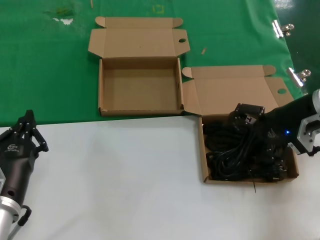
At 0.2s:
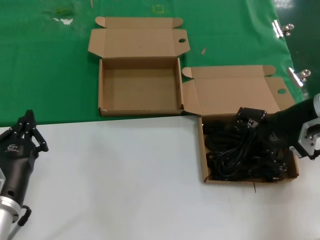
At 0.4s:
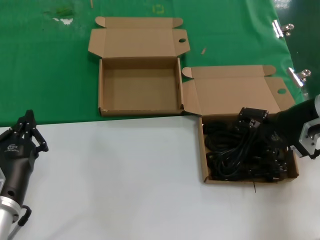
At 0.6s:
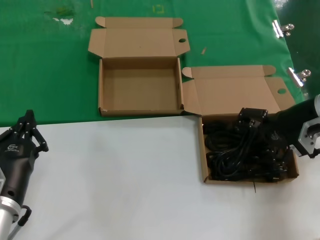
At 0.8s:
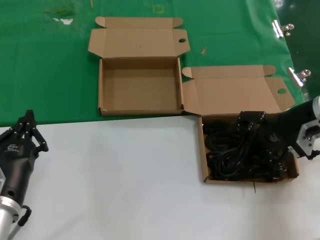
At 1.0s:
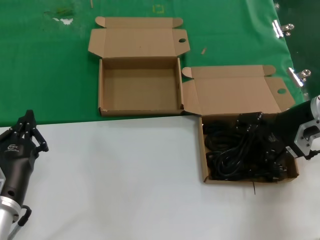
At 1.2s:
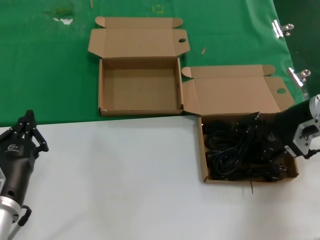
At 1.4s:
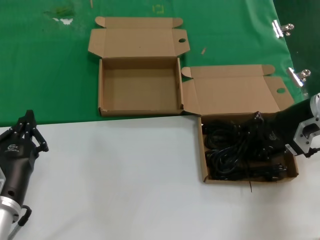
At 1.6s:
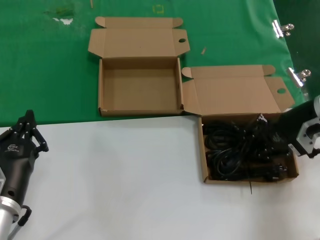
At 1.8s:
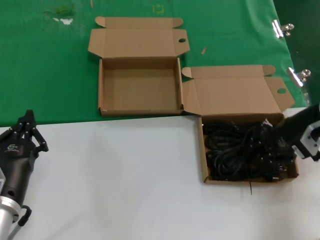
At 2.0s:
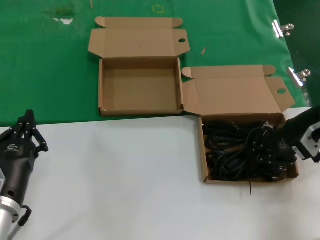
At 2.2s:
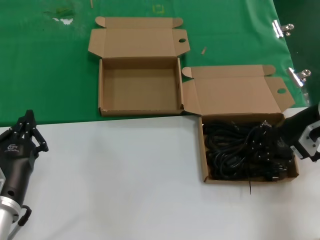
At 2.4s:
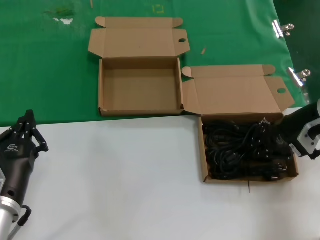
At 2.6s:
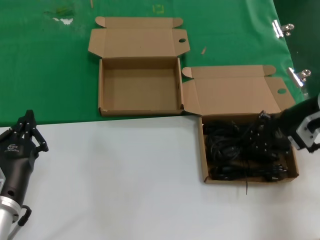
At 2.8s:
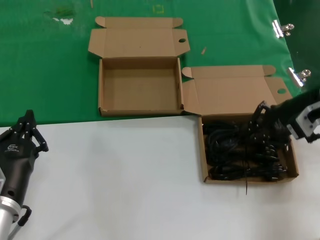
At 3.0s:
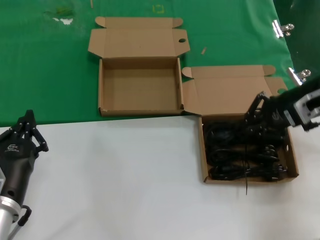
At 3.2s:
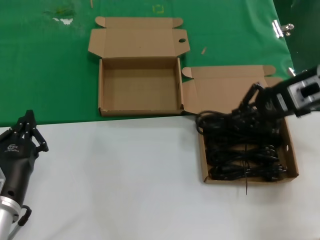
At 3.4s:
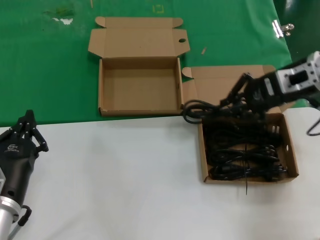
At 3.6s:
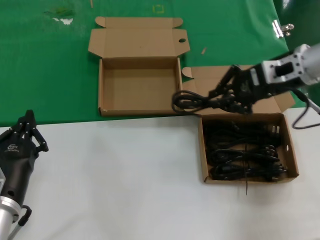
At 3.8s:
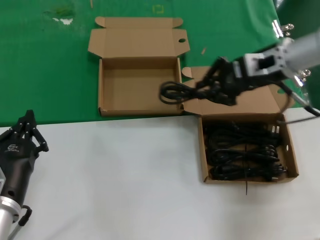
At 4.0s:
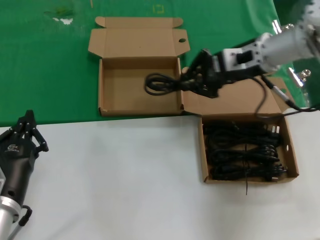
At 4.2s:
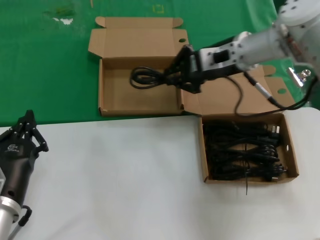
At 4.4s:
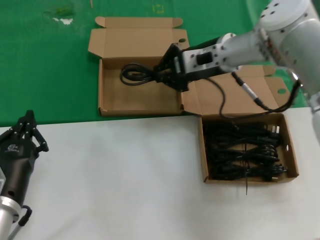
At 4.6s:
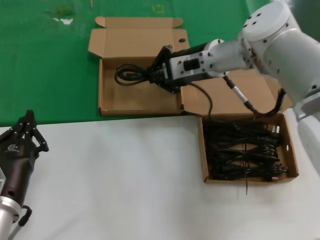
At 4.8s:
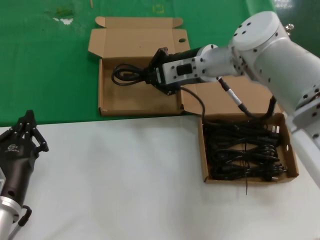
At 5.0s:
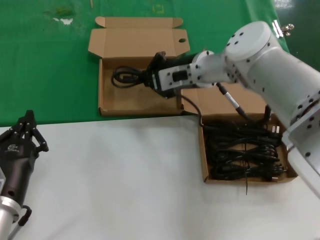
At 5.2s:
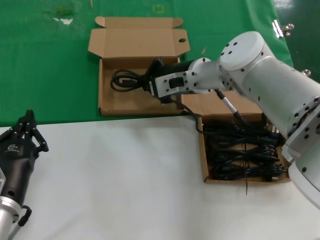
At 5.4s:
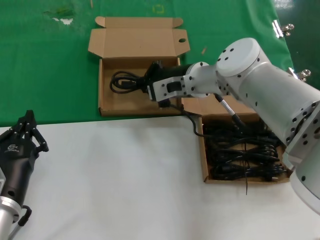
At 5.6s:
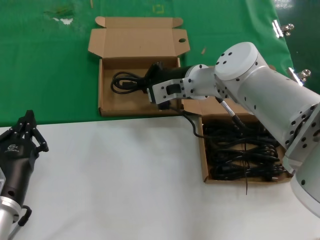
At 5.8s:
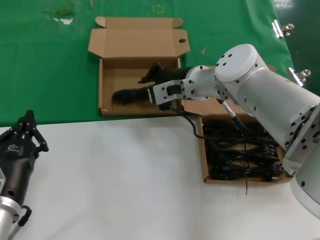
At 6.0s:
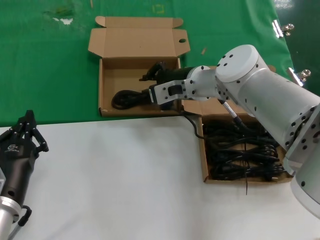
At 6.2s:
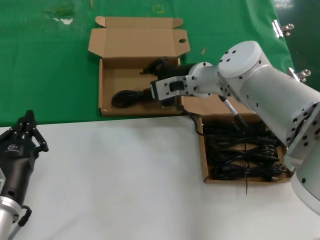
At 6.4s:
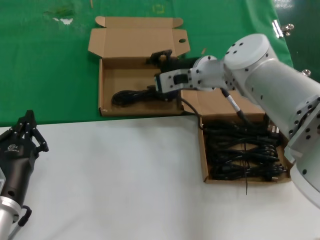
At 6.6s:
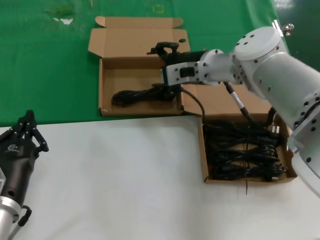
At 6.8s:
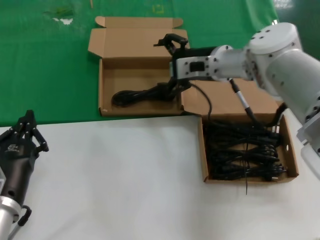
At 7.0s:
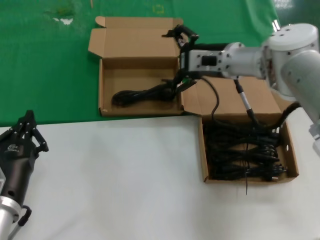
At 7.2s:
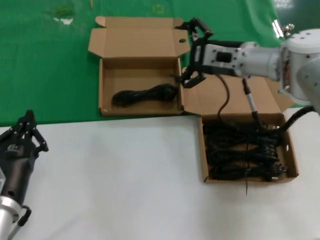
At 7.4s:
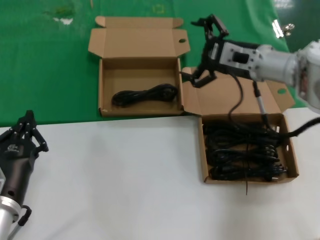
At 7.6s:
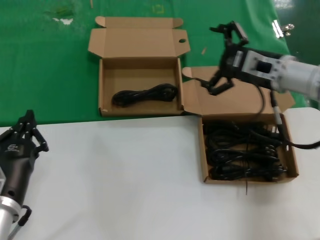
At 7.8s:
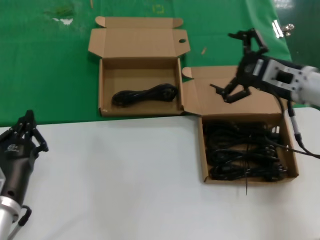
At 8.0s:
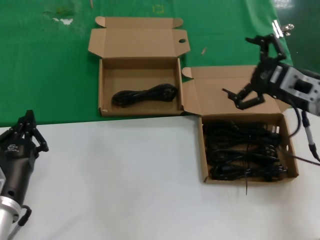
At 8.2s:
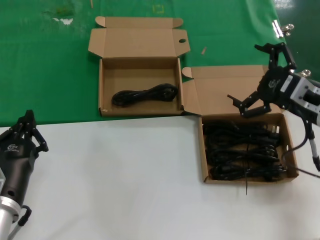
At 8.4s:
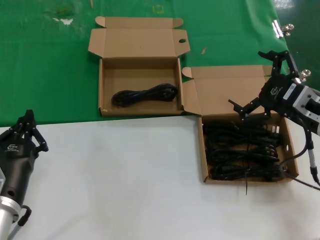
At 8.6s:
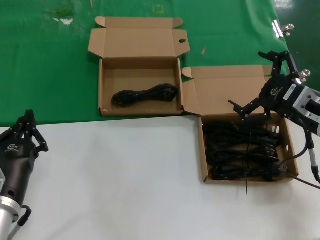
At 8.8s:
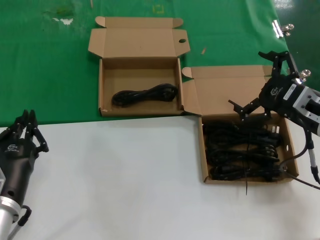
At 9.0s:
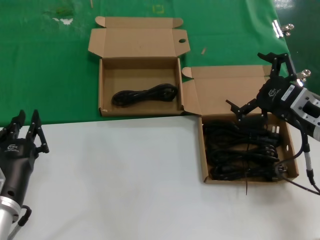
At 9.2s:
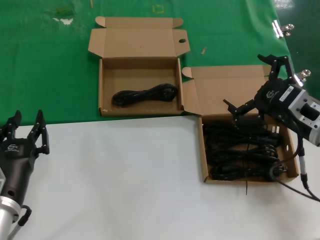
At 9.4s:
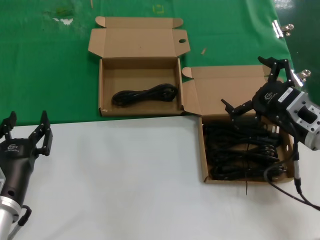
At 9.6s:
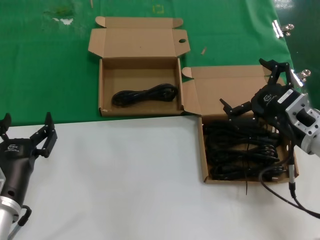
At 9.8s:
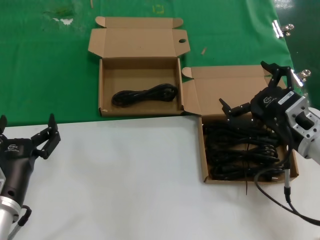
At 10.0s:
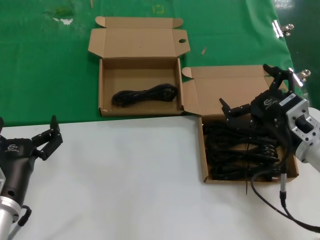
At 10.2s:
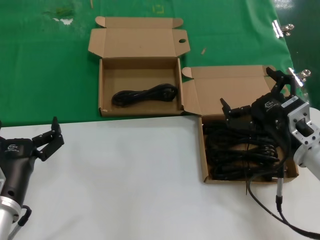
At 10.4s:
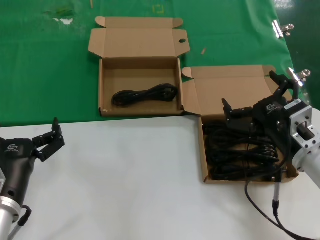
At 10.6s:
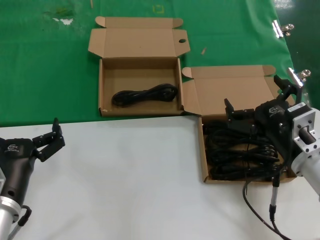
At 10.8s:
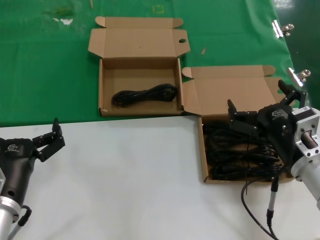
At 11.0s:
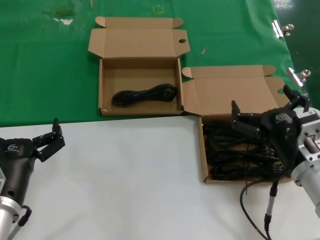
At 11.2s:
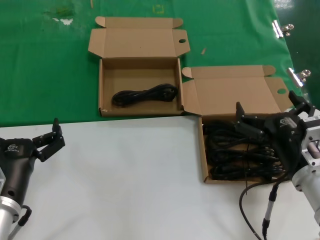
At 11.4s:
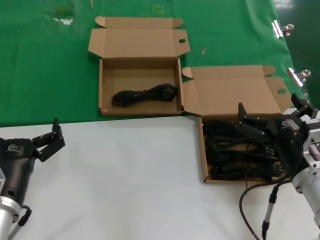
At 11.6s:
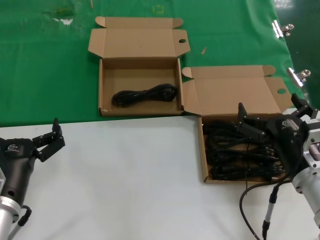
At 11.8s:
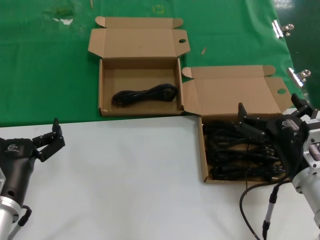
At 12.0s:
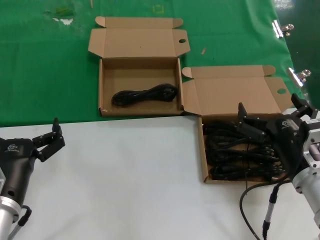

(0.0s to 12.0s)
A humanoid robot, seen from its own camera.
Task of the whole recording: take the parts from the box containing them and put them into an empty box.
Step, 1.8s - 6.0s: Place the data cable in the another box.
0.0s - 1.6s: The hands make only small movements.
1.6s - 3.0s: The right hand goes about 5 cm upward.
3.0s - 4.4s: The right hand shifts about 20 cm to the left and forward.
4.4s - 6.0s: The right hand is displaced downward and to the left by about 10 cm.
6.0s - 7.6s: The right hand shifts approximately 15 cm to the right.
7.6s - 9.0s: The right hand shifts roughly 15 cm backward.
9.0s - 10.4s: The right hand goes roughly 5 cm to the left and downward.
10.4s - 12.0s: The right hand moves some 5 cm.

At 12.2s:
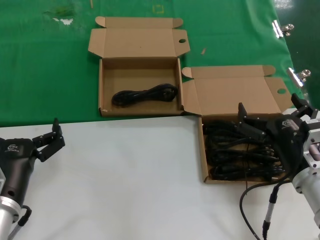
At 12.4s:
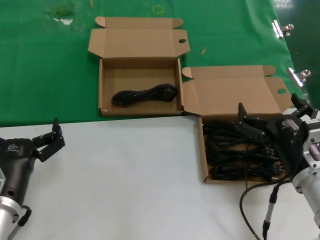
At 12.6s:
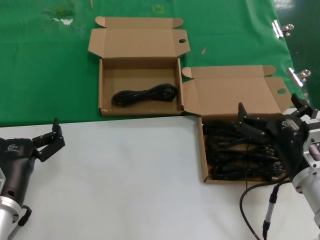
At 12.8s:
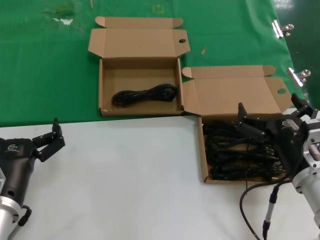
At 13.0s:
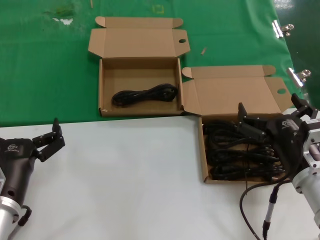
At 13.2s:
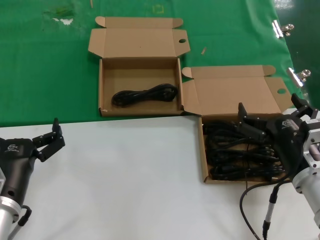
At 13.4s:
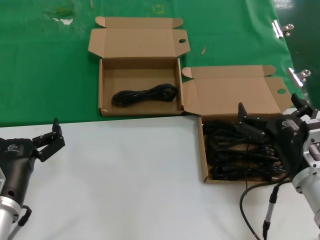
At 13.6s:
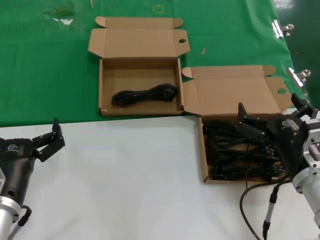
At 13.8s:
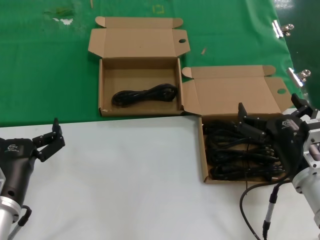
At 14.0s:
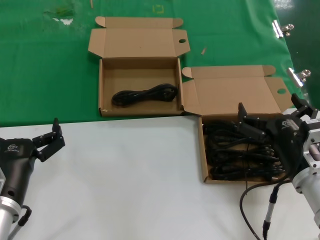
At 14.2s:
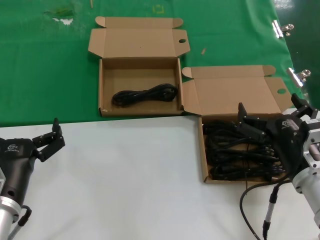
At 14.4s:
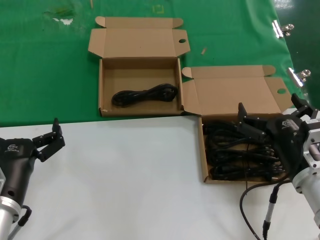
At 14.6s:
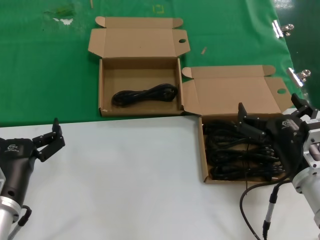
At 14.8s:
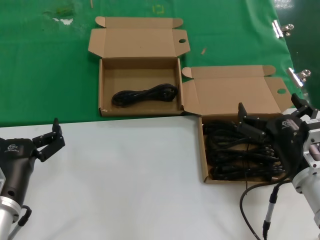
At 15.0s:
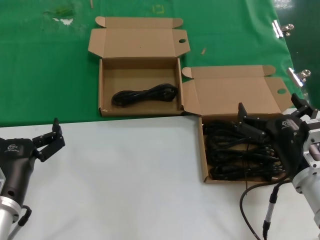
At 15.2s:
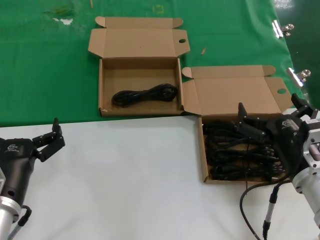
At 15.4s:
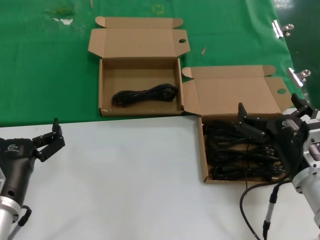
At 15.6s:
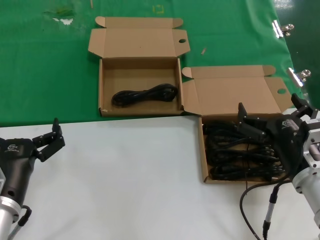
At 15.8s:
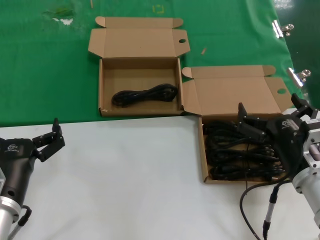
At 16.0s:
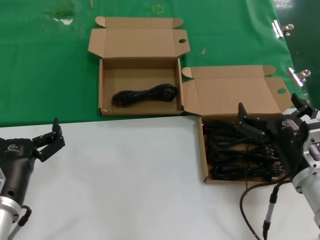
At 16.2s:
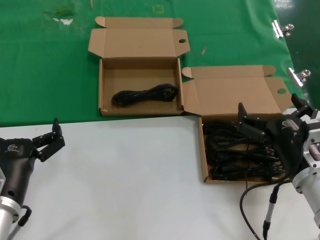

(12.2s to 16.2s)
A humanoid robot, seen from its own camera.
Task of the whole recording: take the parts from the box containing them and put them into an empty box.
12.2s - 16.2s: The two hands keep their place.

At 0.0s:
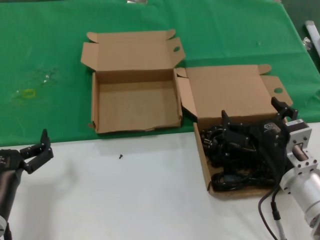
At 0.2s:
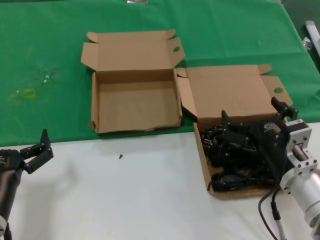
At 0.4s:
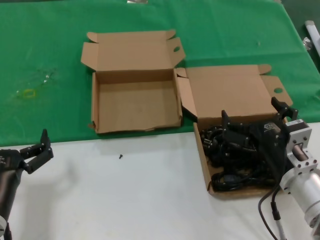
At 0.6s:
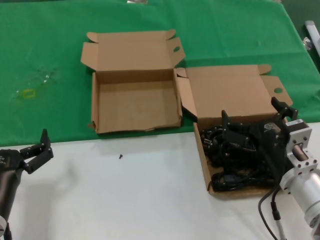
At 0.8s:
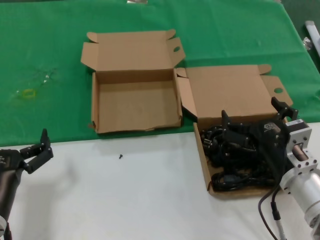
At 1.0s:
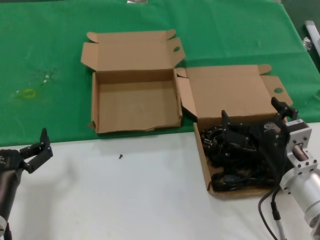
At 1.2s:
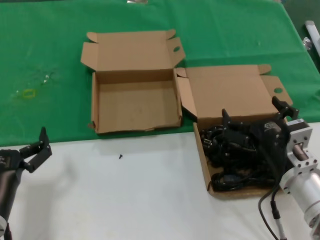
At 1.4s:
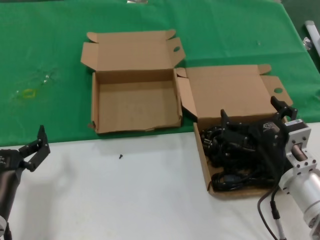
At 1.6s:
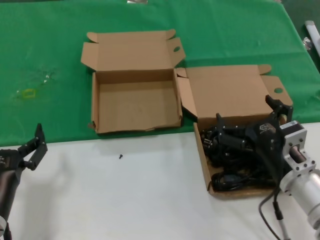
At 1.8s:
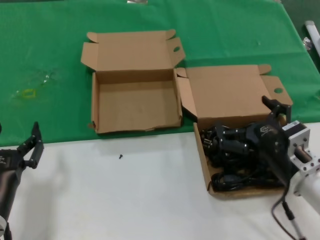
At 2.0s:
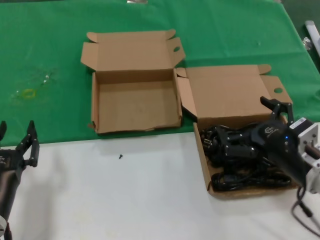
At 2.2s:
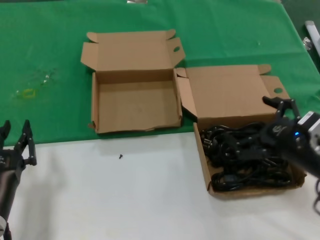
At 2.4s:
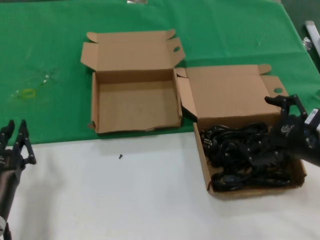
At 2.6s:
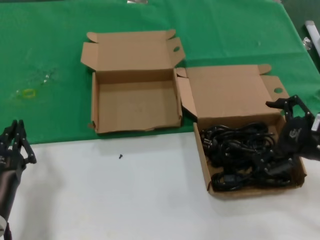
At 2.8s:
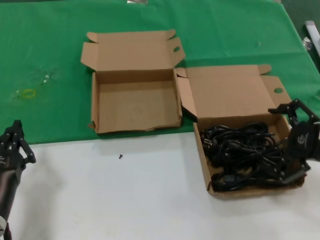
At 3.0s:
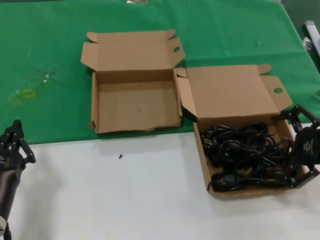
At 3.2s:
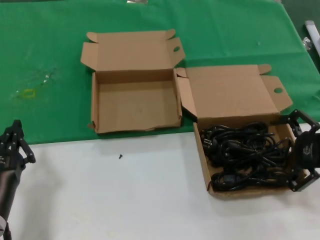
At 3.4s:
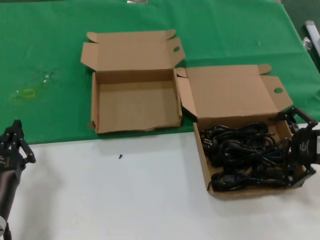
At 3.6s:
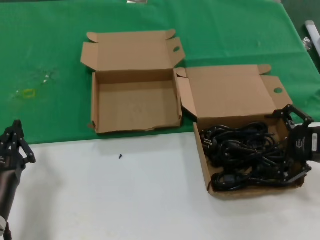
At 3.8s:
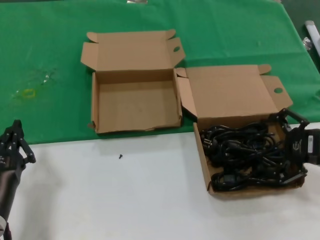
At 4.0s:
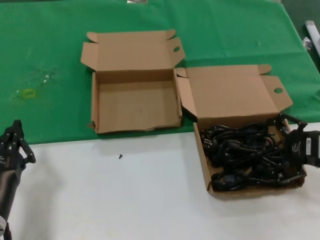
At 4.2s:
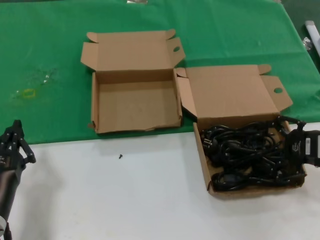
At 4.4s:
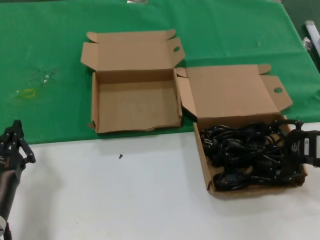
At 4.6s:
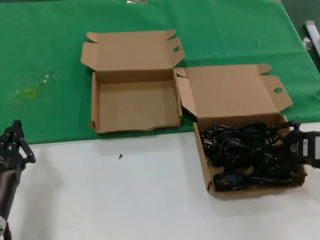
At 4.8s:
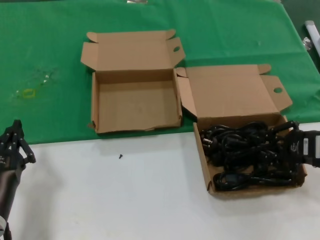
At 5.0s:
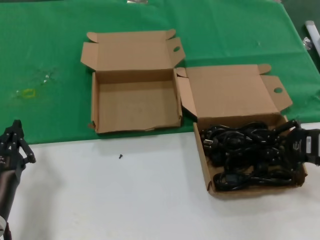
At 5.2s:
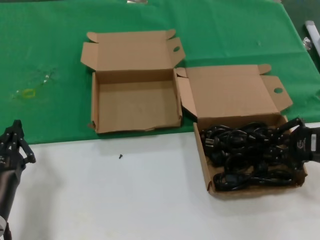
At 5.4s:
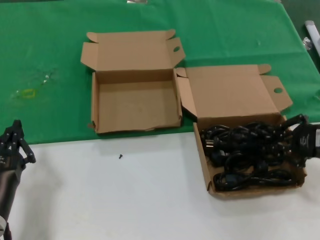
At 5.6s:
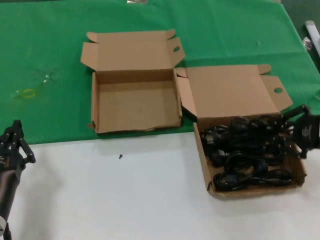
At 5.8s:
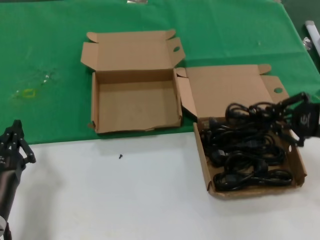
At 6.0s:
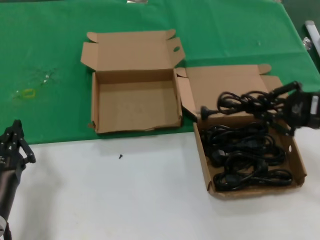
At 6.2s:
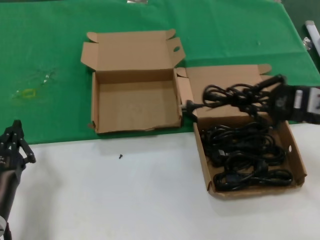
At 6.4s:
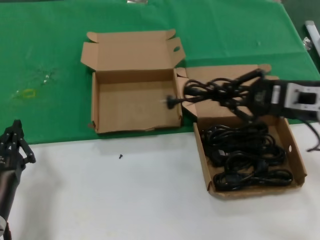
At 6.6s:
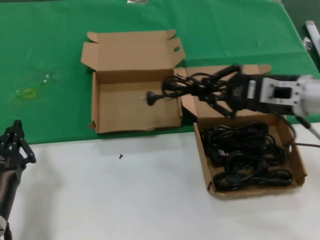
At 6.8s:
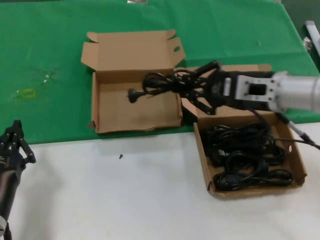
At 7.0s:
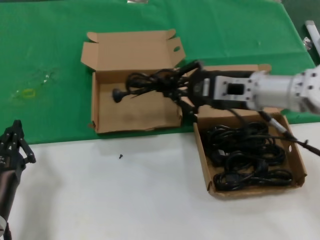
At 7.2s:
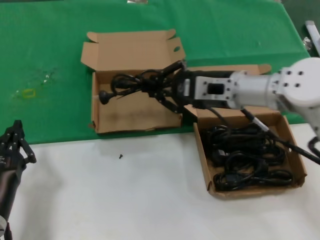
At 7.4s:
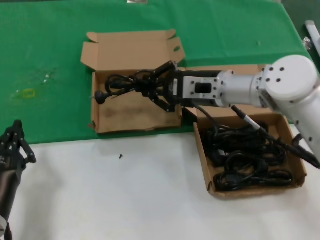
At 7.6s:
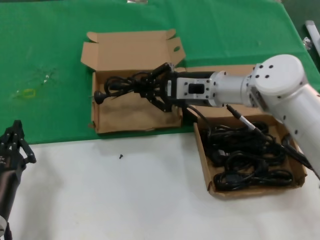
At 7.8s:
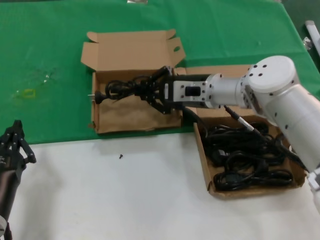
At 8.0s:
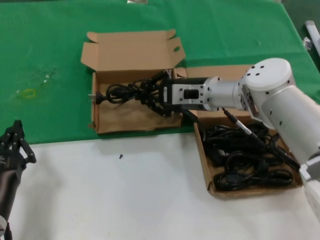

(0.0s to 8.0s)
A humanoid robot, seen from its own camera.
Task of the whole recording: take the parts from the box containing them and put them into an empty box.
Step, 0.0s - 5.0s: Grasp the data cable.
0.0s - 1.6s: Both hands stay put.
1.6s - 3.2s: The right hand is displaced to the right and upward by about 20 cm.
3.2s - 4.8s: The hands move only a little.
4.8s - 6.4s: The right hand travels upward and to the left by roughly 10 cm.
6.4s - 8.0s: The right hand moves to the left and forward, some 20 cm.
